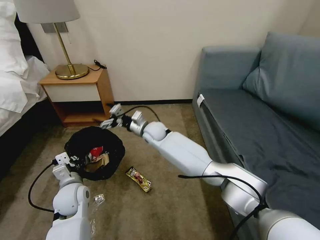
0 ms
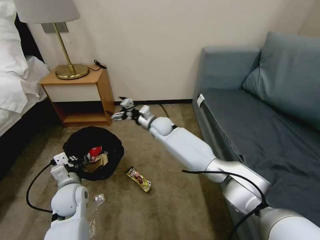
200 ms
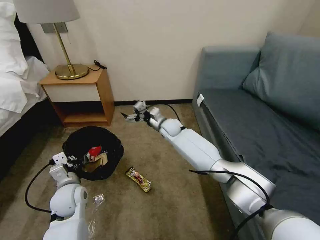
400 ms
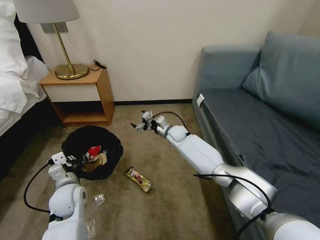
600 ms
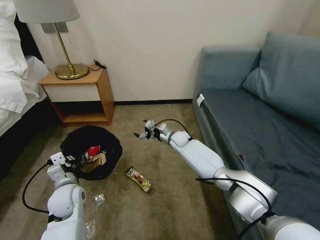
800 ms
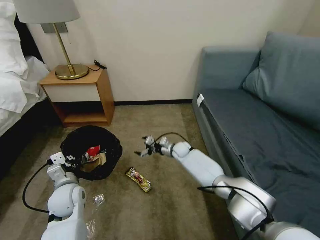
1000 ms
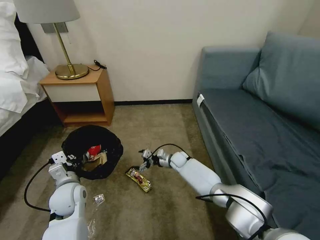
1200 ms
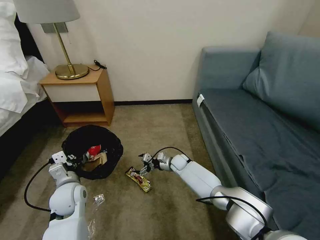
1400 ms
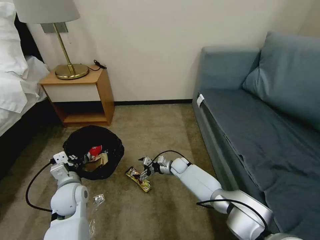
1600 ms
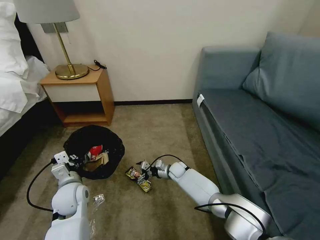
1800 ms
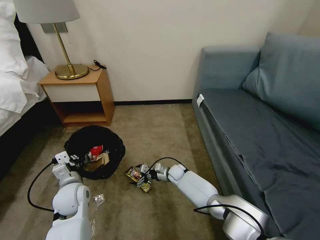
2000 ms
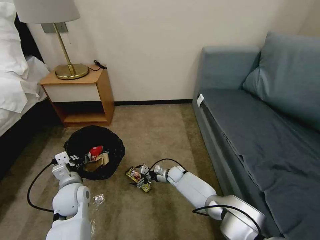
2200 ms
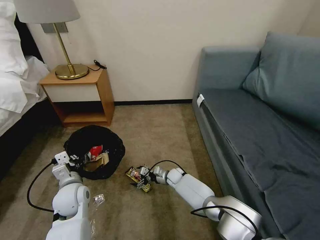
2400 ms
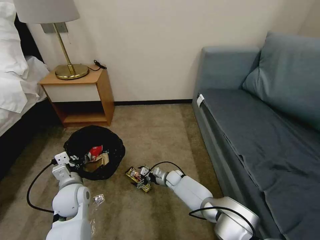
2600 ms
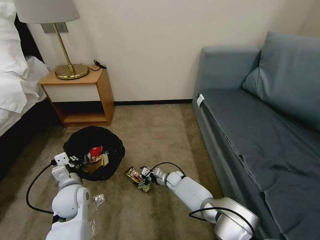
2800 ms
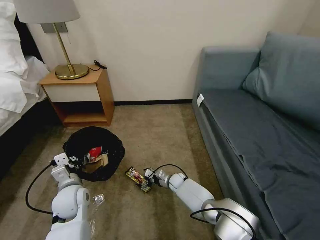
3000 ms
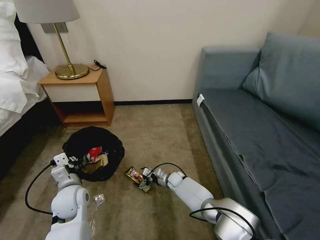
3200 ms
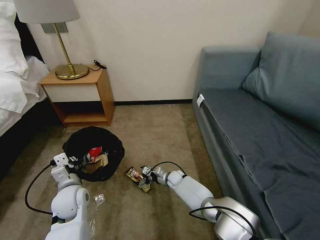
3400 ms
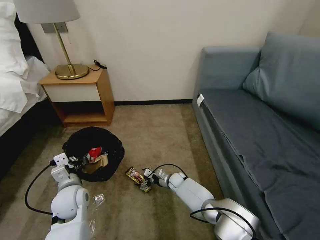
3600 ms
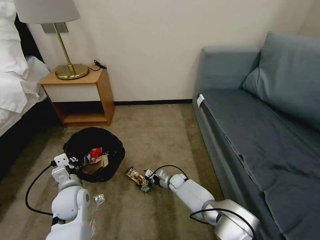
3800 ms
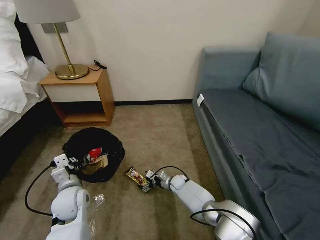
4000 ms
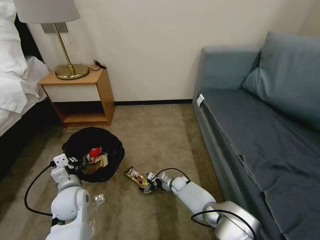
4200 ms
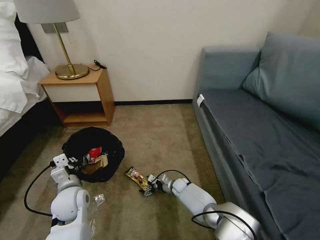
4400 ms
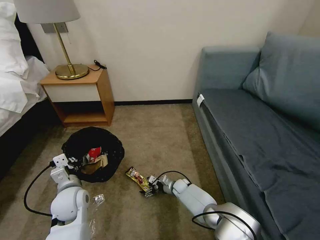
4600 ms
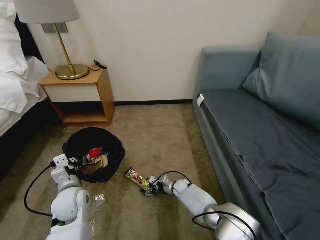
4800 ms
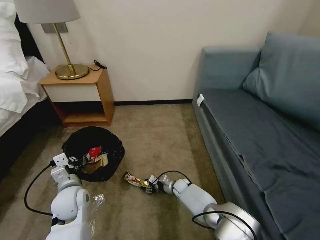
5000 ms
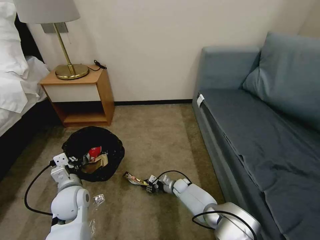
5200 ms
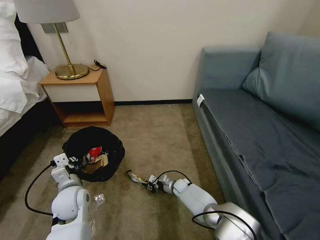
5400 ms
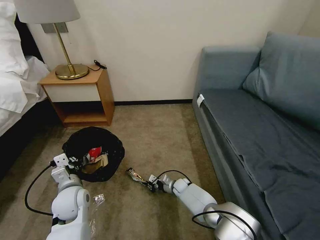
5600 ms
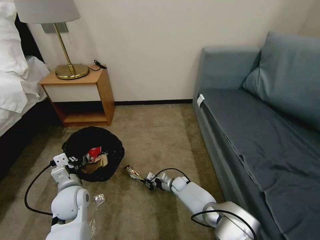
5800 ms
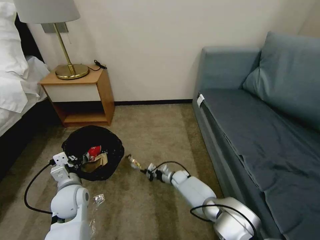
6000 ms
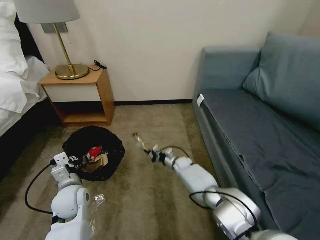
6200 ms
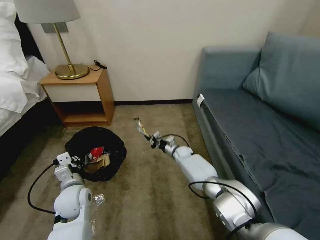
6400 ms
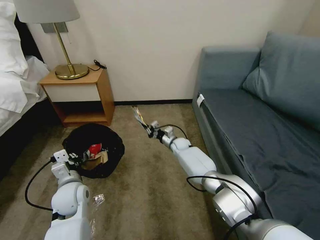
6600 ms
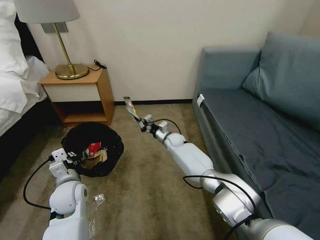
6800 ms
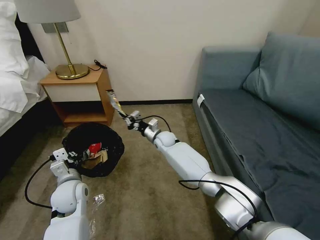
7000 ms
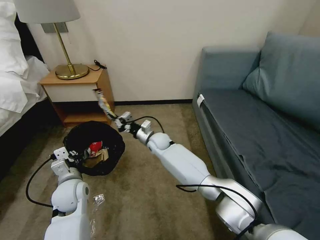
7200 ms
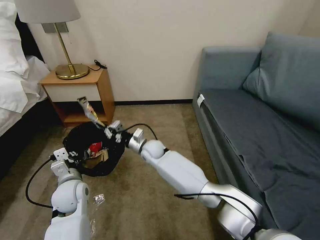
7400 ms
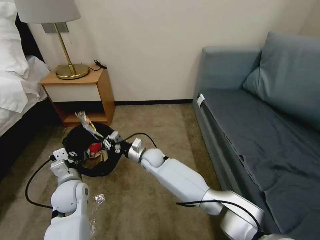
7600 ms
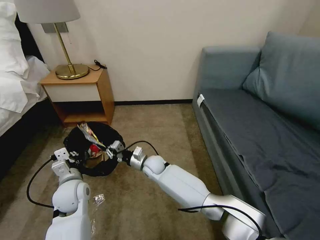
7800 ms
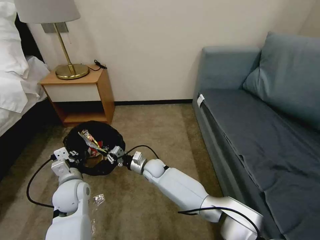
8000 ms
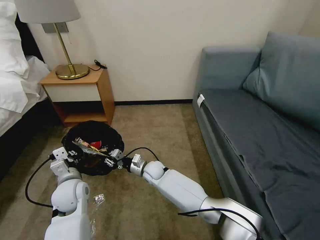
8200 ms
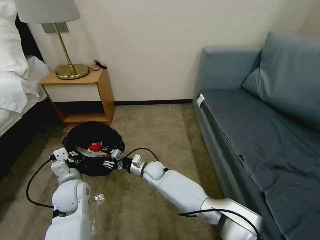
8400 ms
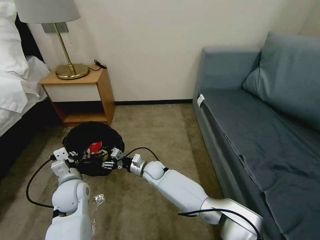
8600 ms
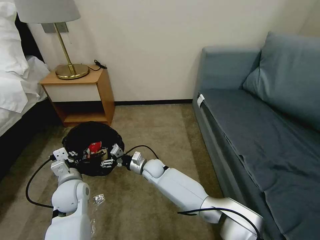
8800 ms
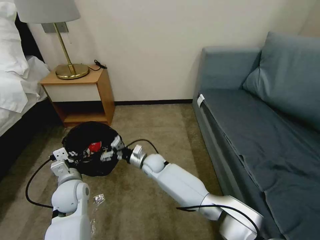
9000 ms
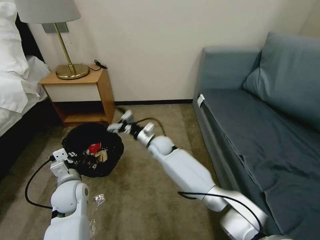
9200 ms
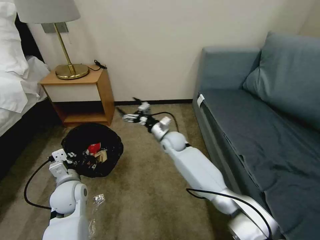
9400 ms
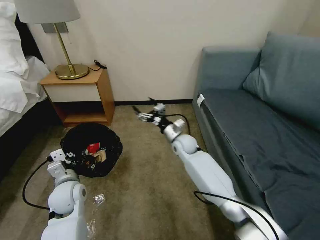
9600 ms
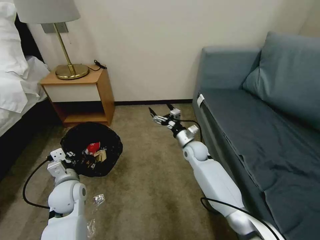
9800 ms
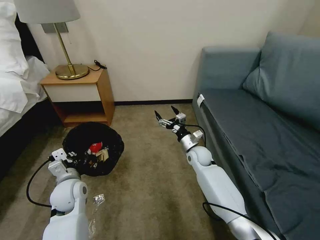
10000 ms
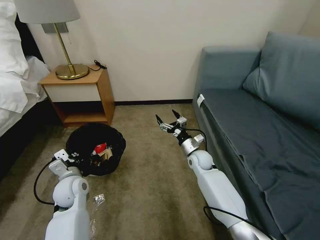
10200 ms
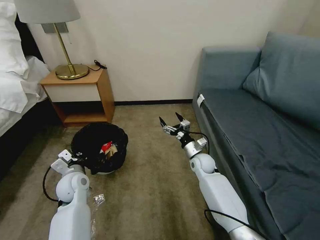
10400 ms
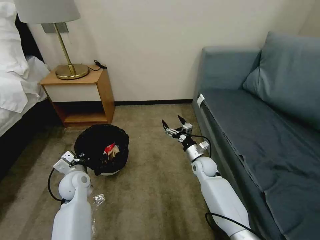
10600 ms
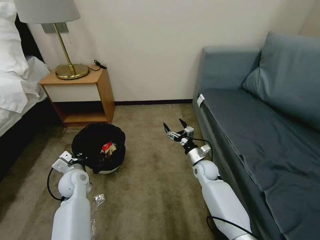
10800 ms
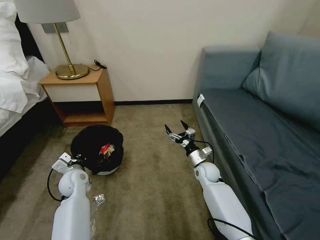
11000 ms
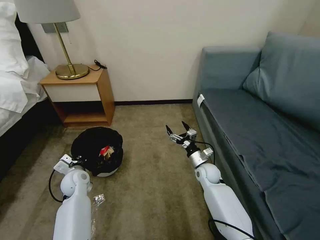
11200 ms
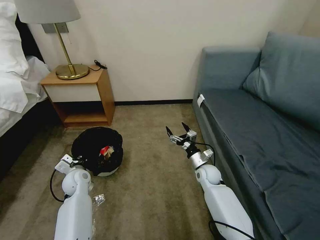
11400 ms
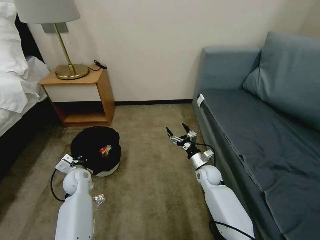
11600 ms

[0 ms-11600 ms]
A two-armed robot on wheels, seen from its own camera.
Task of the whole recording: Pick up the trash bin, then pick up the garbage on the floor and place it into the trash bin.
0 ms to 1400 ms: The right gripper is displaced downward and to the right by about 25 cm.
1400 ms to 2800 ms: The right gripper goes roughly 10 cm downward and backward.
2800 ms to 4400 ms: The grippers make only small movements.
4400 ms to 5800 ms: The right gripper closes its fingers.
5800 ms to 7200 ms: The right gripper shifts roughly 25 cm upward and to the left.
7200 ms to 8800 ms: The right gripper is displaced downward and backward by about 10 cm, and opens.
8800 ms to 10200 ms: The right gripper heads to the right, covering approximately 20 cm.
10200 ms to 11600 ms: The right gripper heads downward, covering approximately 5 cm; the left gripper shifts roughly 10 cm downward and forward.

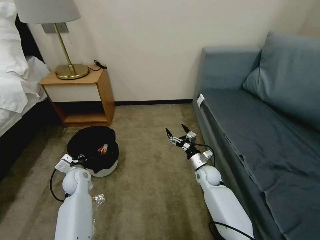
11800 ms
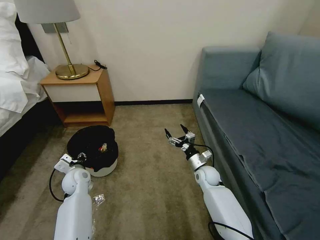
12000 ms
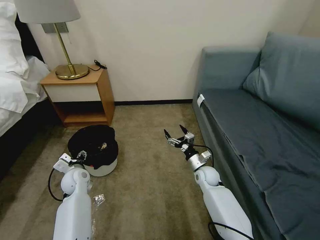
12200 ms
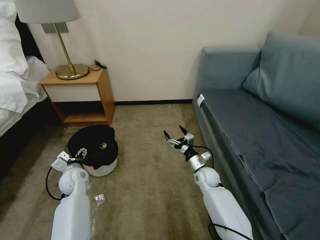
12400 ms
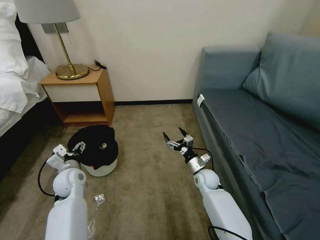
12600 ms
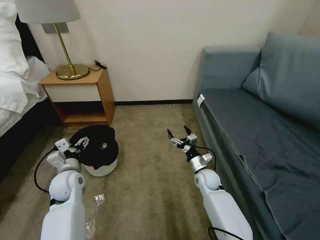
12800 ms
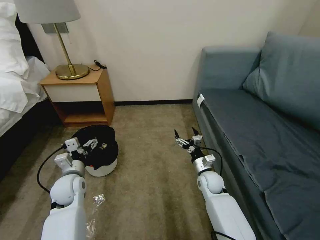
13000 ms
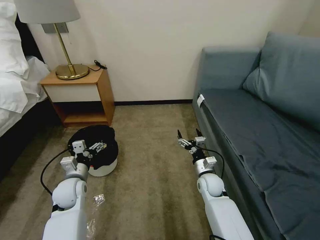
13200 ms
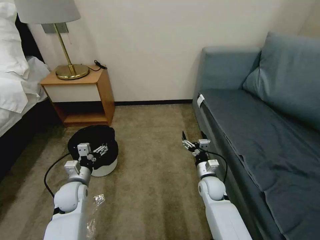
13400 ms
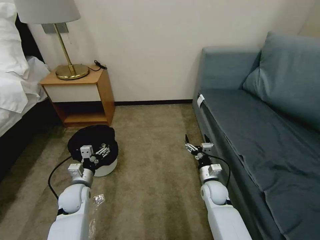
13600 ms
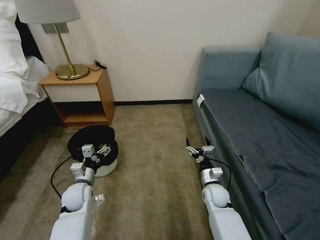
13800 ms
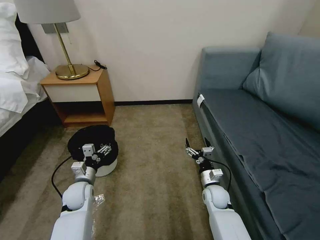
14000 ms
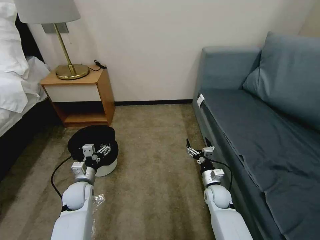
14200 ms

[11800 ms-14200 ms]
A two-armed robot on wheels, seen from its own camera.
Task of the whole recording: Pick up the trash bin, then pick up the garbage on the floor and place it into the trash bin.
11800 ms to 13000 ms: The left gripper travels upward and backward by about 10 cm, and opens.
13000 ms to 14200 ms: The left gripper moves downward, approximately 5 cm. Meanwhile the right gripper ends up approximately 5 cm from where it was.

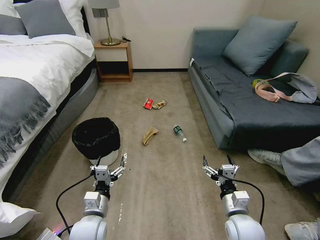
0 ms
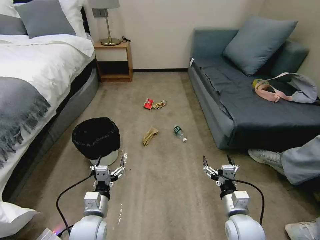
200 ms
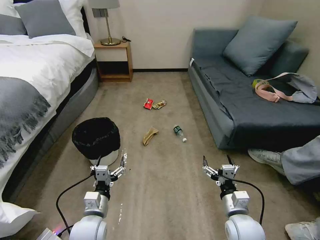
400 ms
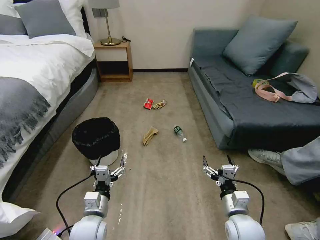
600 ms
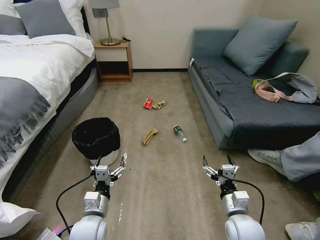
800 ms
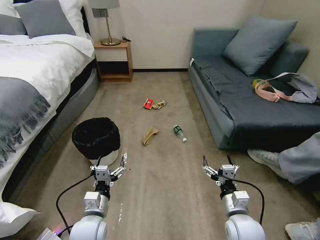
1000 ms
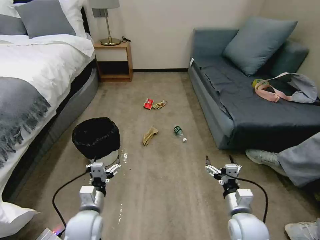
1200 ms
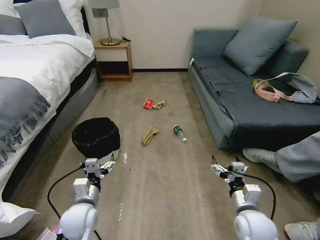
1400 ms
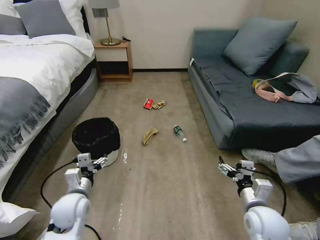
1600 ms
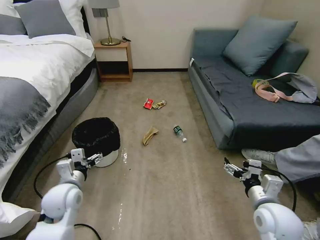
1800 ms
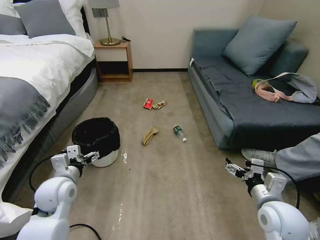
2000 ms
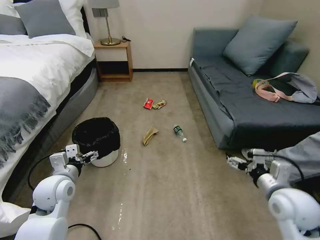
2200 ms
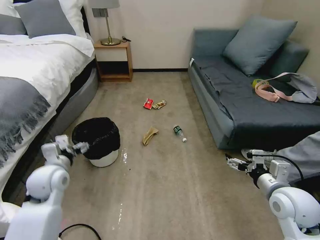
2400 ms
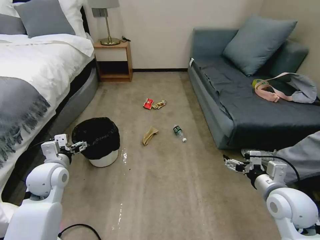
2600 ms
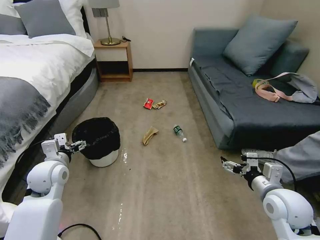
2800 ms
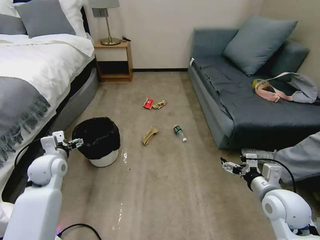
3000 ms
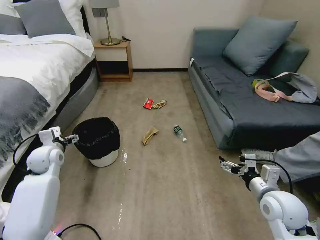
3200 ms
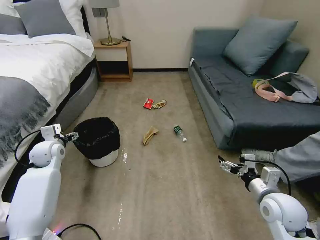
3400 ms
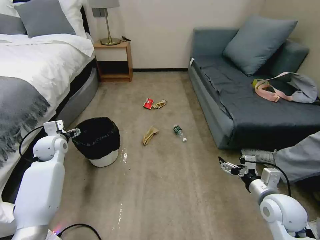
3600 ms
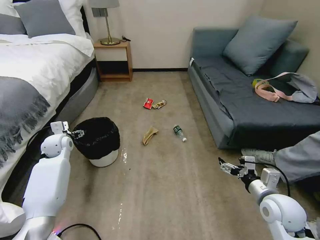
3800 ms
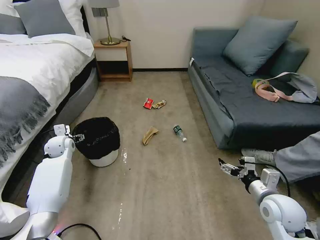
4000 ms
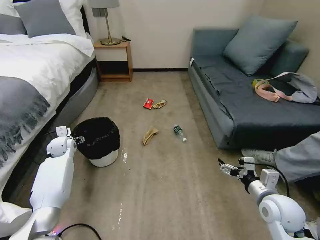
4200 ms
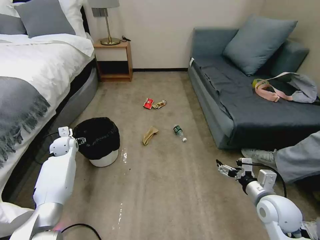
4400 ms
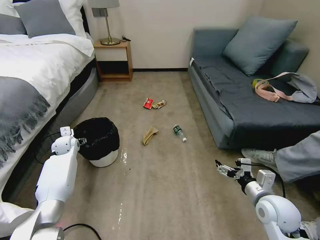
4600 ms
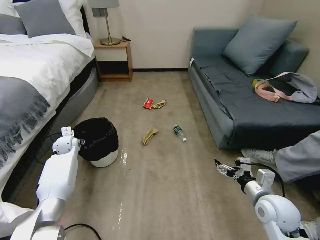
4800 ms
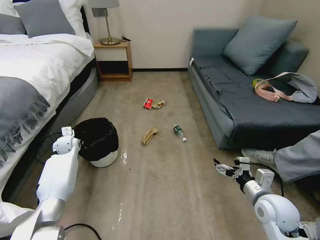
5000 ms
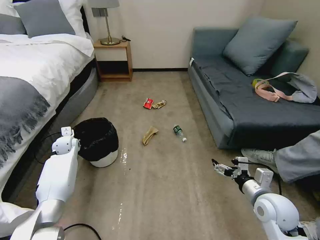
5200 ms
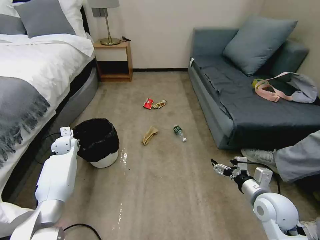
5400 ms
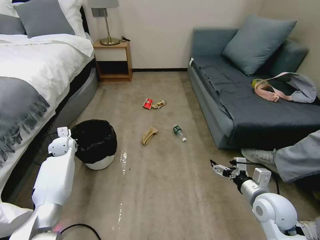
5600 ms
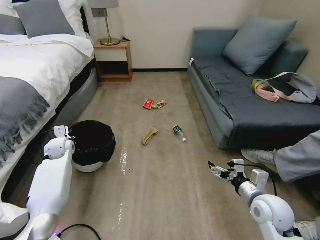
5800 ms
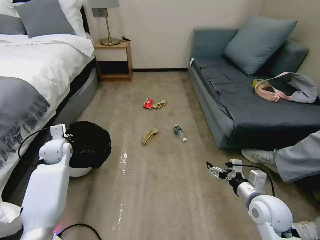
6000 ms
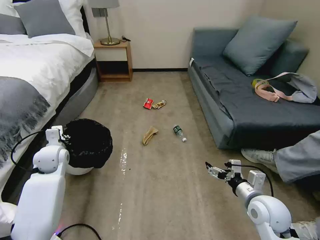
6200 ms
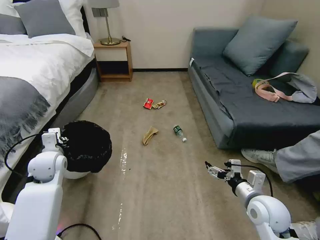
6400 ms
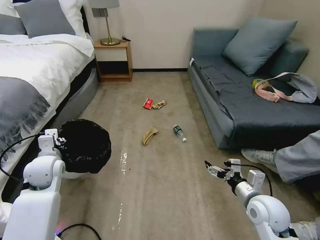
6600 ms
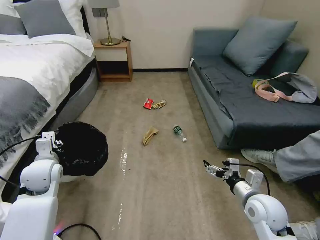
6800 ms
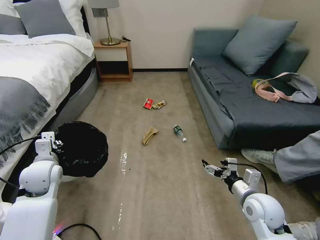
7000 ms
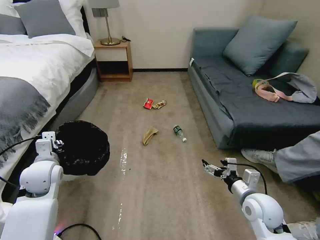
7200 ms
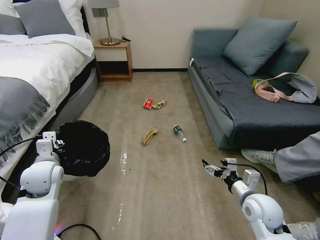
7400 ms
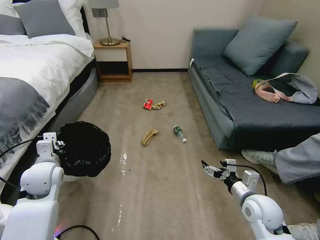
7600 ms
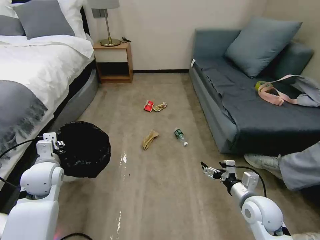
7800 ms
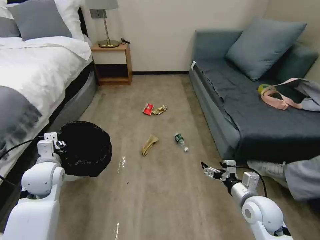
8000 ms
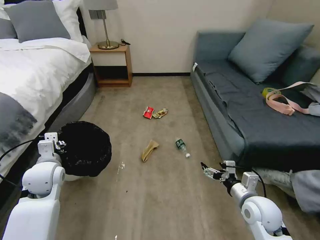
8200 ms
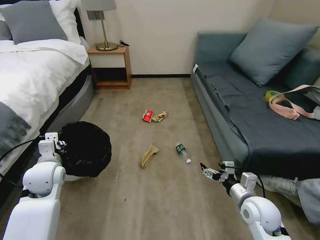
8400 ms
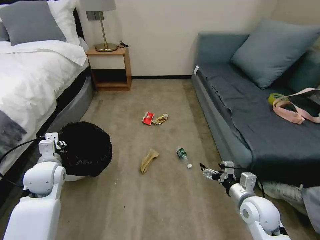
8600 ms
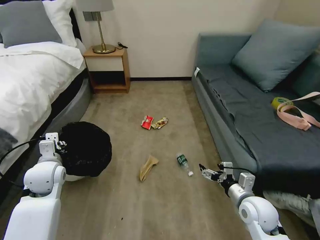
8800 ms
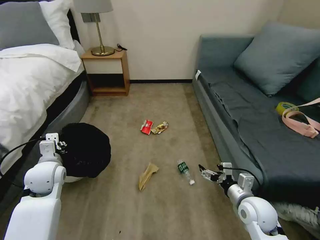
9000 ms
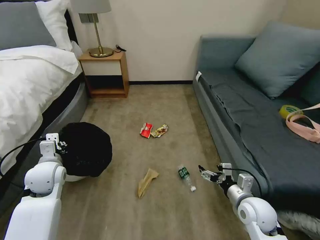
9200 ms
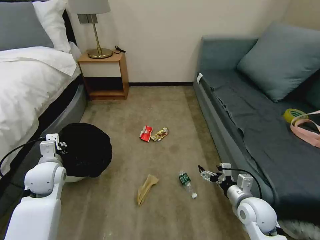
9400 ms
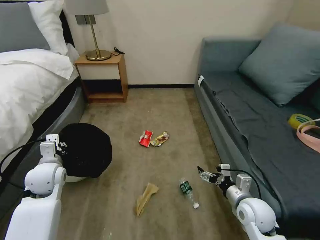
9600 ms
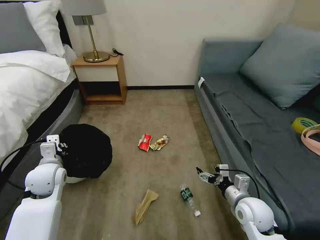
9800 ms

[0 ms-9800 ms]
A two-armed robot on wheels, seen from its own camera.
Task of the whole recording: Pick up the trash bin, then pick up the garbage on the floor and place it into the trash bin.
1400 ms to 2800 ms: The left gripper heads to the left, forward and upward, covering about 15 cm. Meanwhile the right gripper moves upward and to the right, approximately 10 cm.
2800 ms to 4200 ms: The left gripper shifts roughly 20 cm forward, downward and to the left.
4200 ms to 5600 ms: The left gripper closes its fingers.
5600 ms to 7000 ms: The left gripper goes about 20 cm backward and upward.
